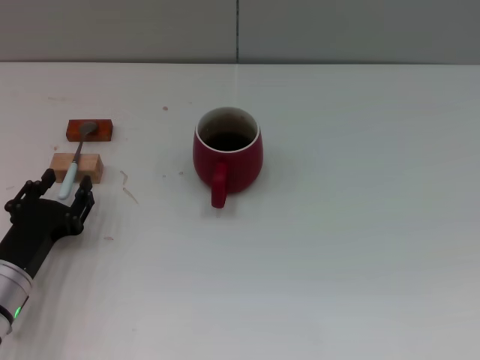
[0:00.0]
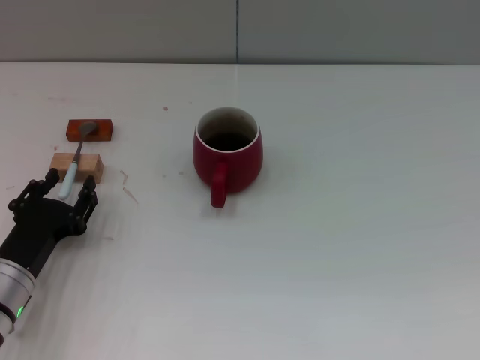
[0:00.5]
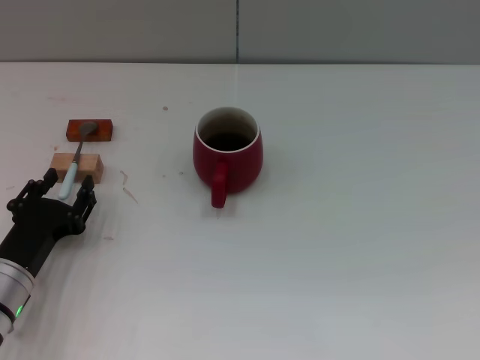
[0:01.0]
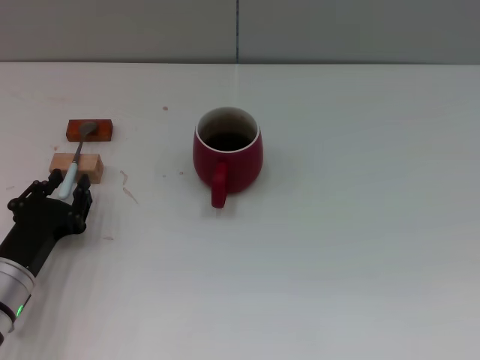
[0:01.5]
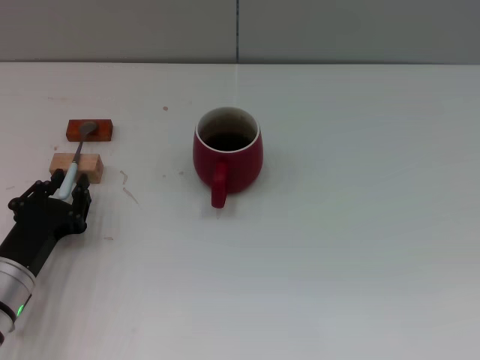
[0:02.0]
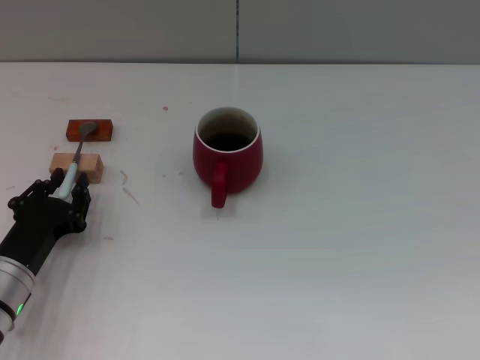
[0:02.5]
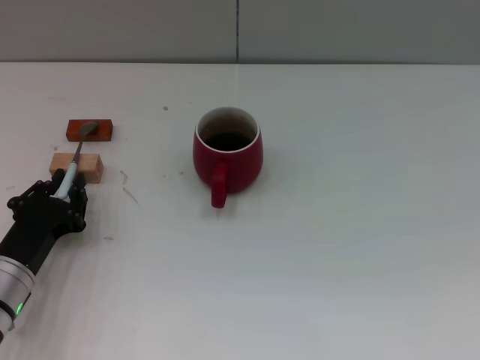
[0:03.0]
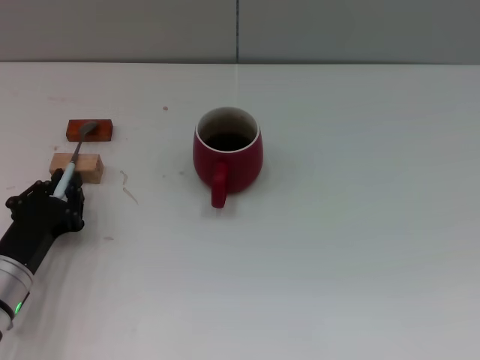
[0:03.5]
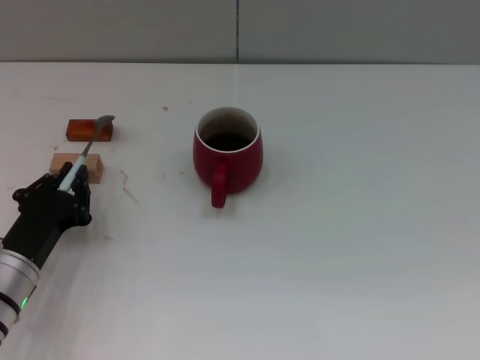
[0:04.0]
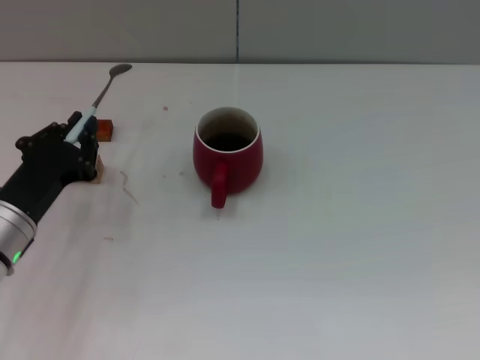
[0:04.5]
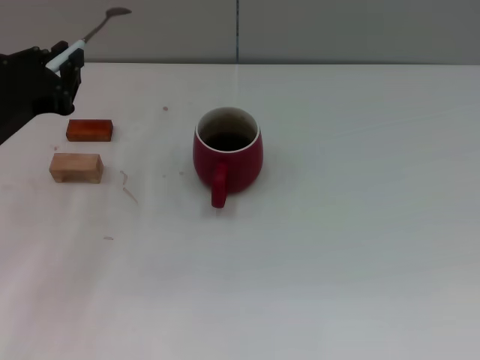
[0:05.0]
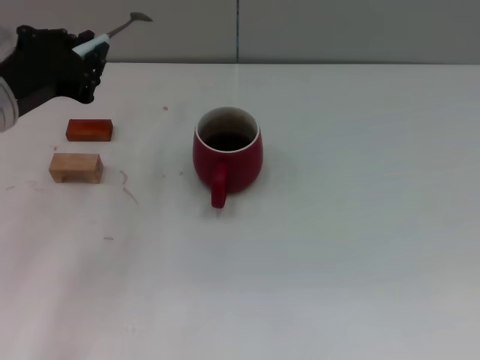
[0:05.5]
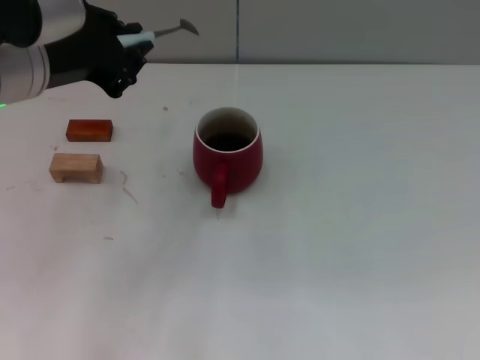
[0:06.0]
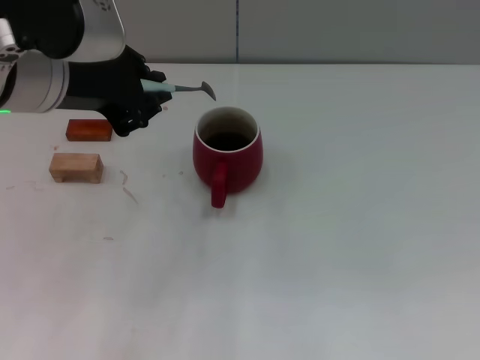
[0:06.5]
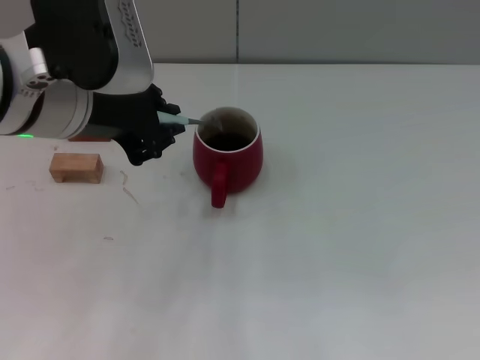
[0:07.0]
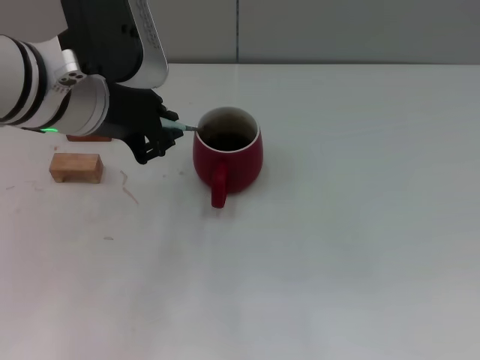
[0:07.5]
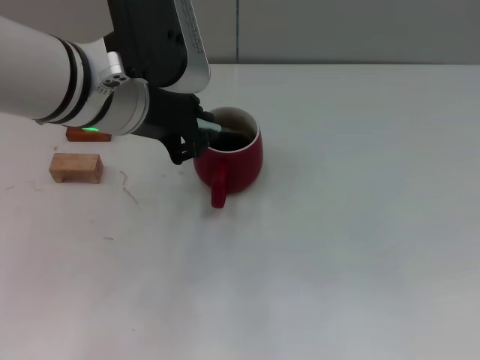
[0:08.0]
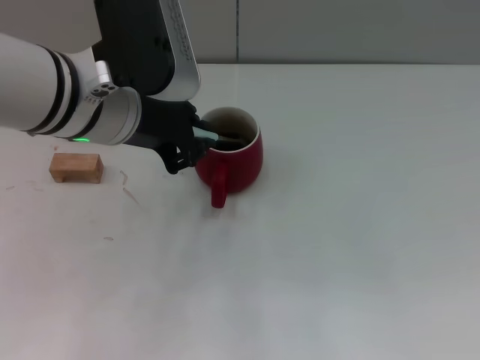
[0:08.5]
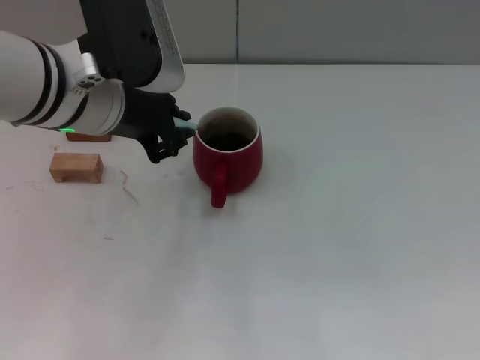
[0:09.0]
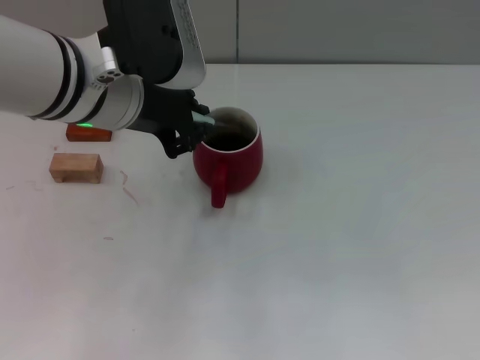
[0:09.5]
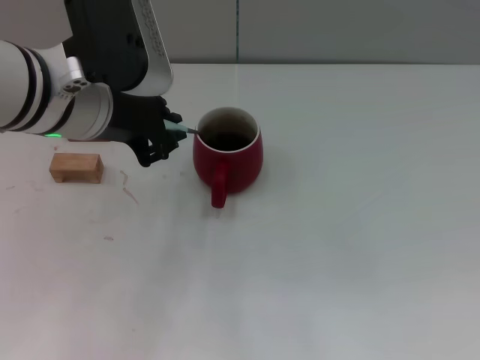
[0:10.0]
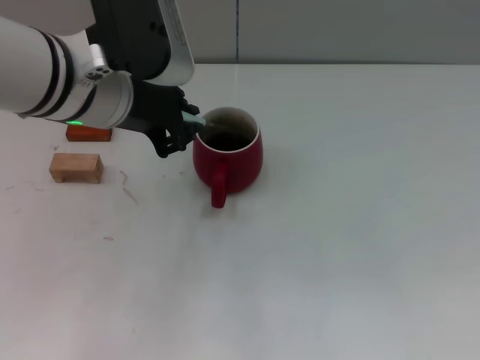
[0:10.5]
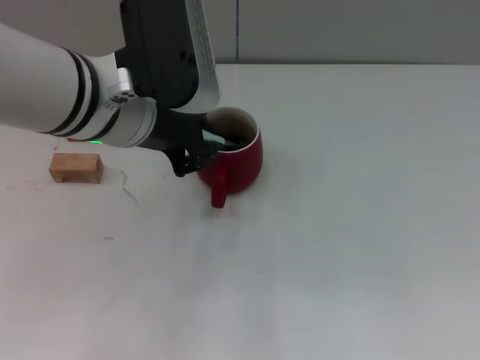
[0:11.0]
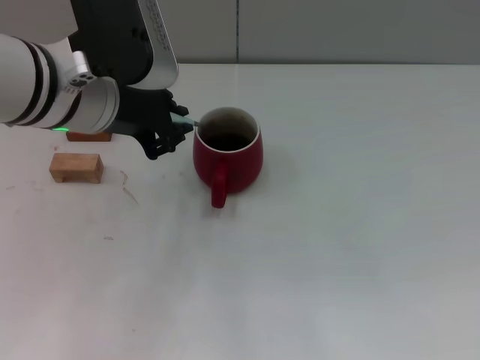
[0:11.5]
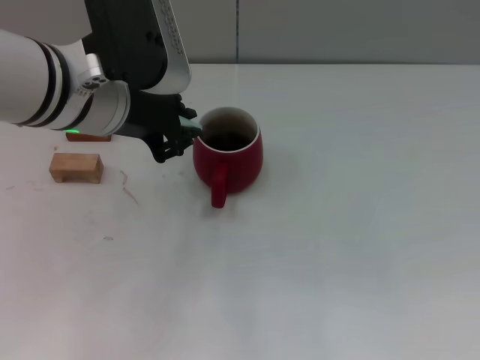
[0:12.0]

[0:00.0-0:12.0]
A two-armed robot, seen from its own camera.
Task of the whole recording: Move the red cup to the center, lift the blue spoon, stir it three times in the cup, and put the spoon into the cup.
Step, 0:00.0 to 0:05.0: Pick up the spoon with the left gripper.
0:00.0 to 0:02.0: The left gripper closes up.
0:02.0 to 0:04.0: Both grippers stay put.
0:04.0 to 0:06.0: The left gripper heads upward, covering some 25 cm.
0:06.0 to 0:08.0: The left gripper shifts approximately 5 cm to the right.
0:08.0 to 0:12.0: The grippers move only a little.

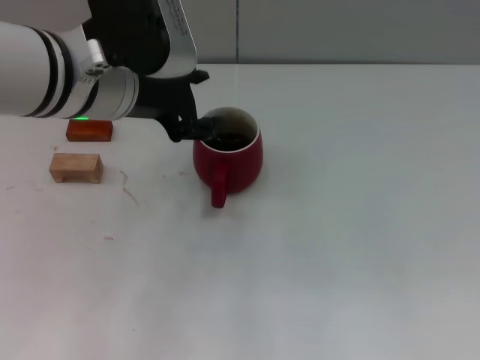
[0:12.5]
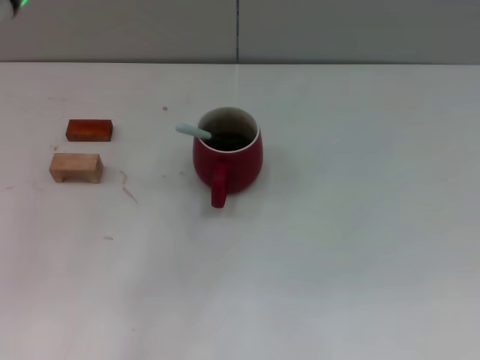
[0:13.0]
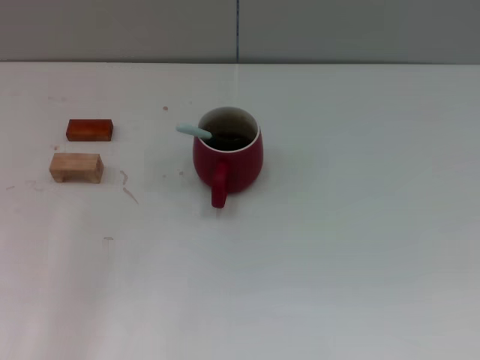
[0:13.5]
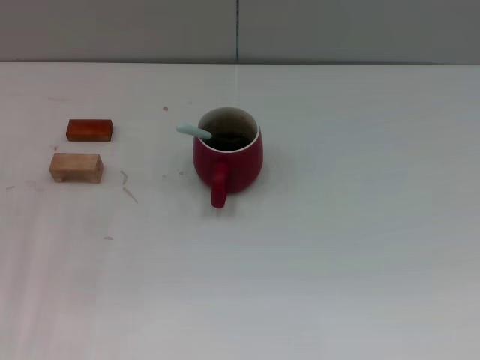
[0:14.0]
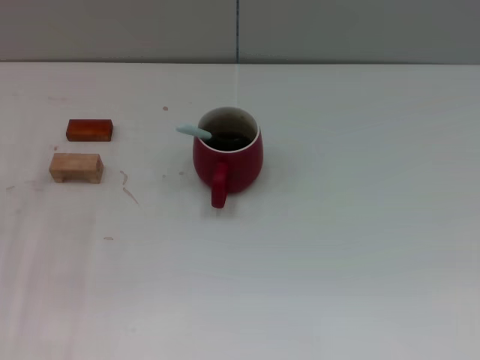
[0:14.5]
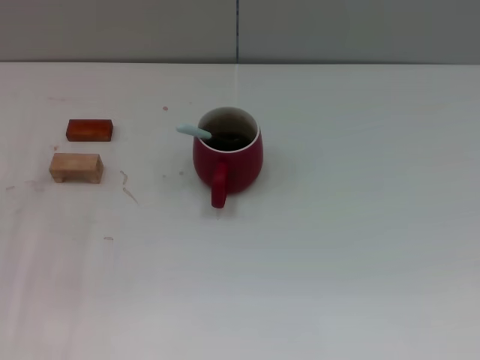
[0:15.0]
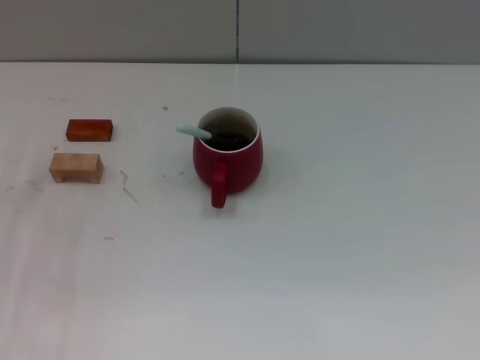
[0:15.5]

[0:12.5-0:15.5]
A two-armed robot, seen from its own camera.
Task of the whole recording: Move the red cup to the center, lift the blue spoon, stir it three times in the cup, and put the spoon into the cup.
0:12.5 to 0:14.0: The left gripper goes approximately 20 cm to the left and downward, and opens its fingers.
